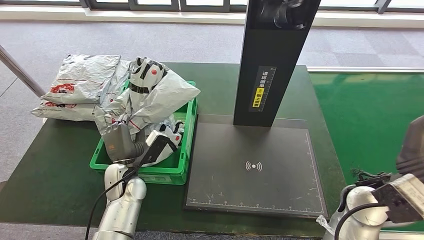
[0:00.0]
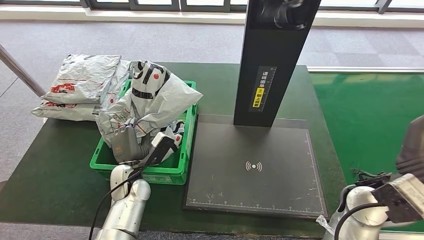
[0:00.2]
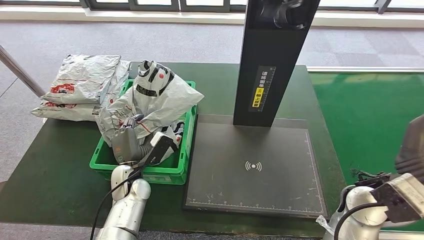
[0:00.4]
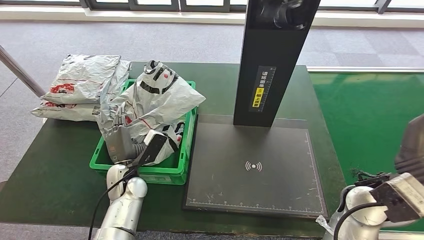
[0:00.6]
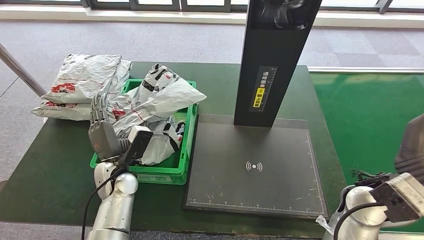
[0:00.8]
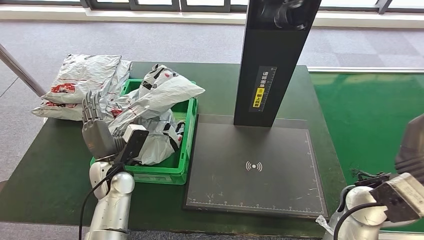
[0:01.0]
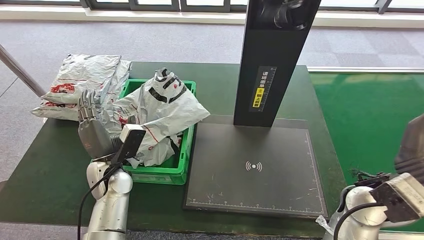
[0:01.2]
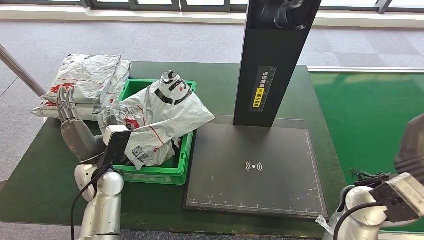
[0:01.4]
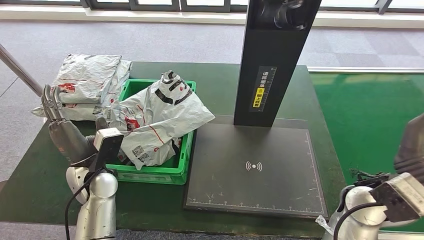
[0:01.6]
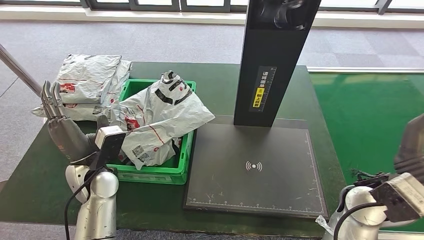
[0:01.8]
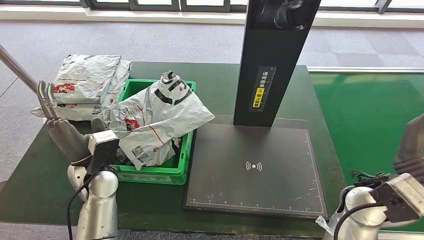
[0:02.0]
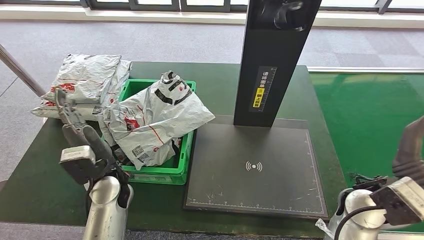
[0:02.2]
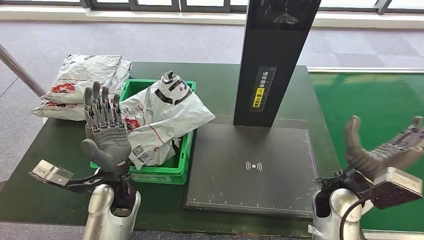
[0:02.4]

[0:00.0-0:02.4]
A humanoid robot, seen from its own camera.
Step, 0:00.0 to 0:02.2: Place the parcel into the delivery box.
0:00.0 to 0:01.2: The hands stay close to where they were, moving slightly.
0:01.2 to 0:02.4: The right hand shifts some 5 cm downward. Meanwhile the left hand changes place by roughly 5 cm.
